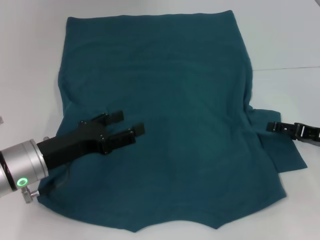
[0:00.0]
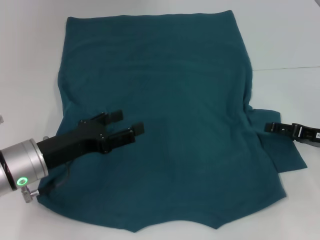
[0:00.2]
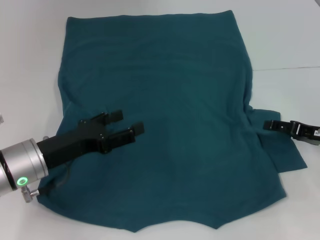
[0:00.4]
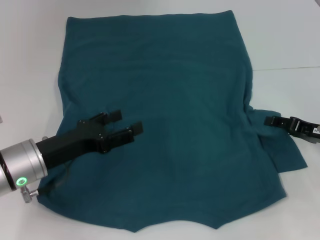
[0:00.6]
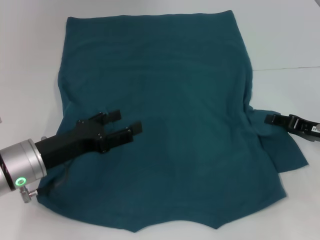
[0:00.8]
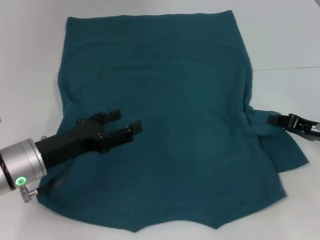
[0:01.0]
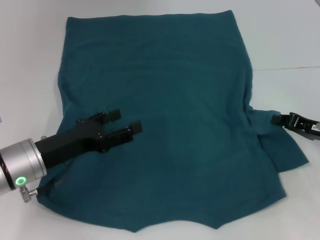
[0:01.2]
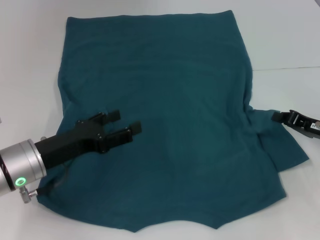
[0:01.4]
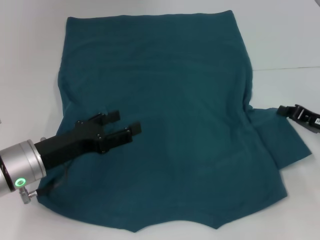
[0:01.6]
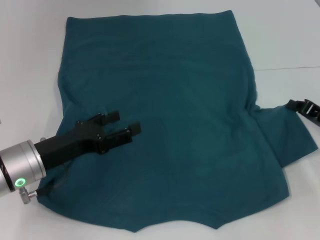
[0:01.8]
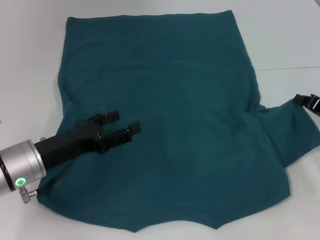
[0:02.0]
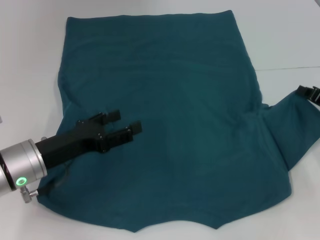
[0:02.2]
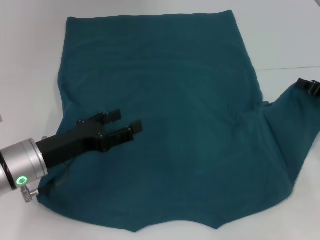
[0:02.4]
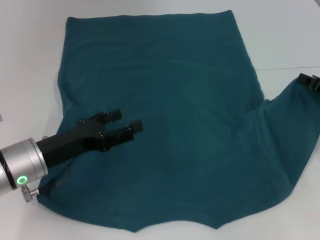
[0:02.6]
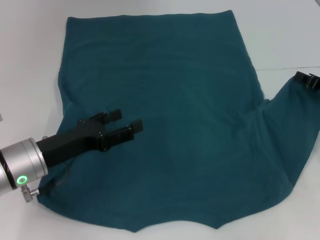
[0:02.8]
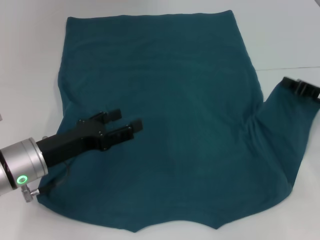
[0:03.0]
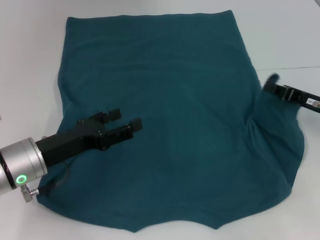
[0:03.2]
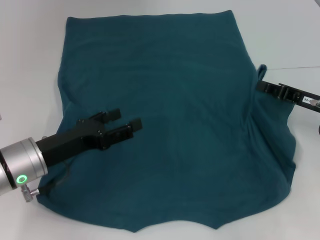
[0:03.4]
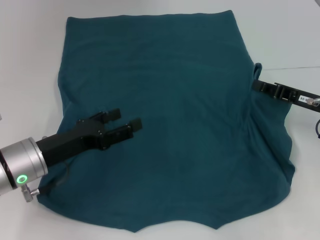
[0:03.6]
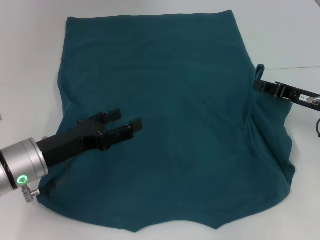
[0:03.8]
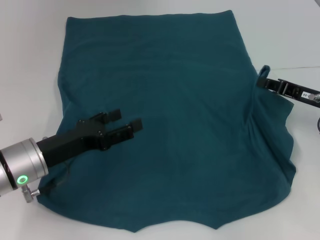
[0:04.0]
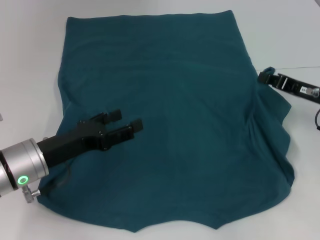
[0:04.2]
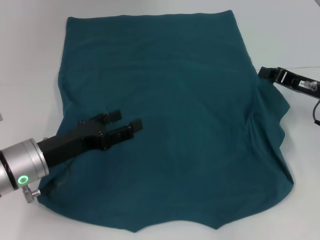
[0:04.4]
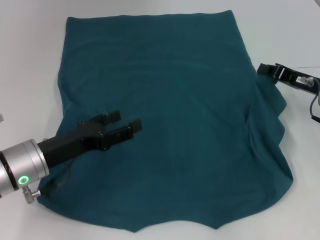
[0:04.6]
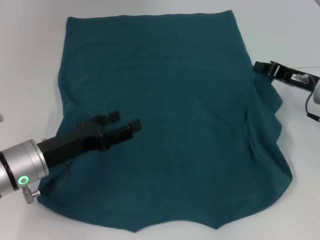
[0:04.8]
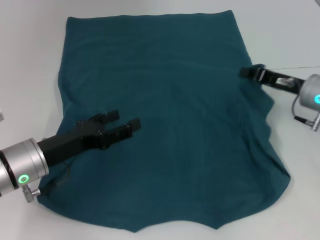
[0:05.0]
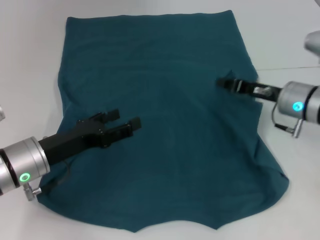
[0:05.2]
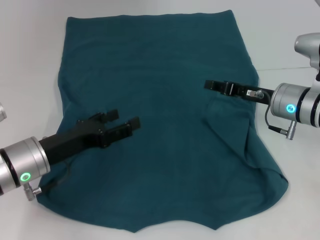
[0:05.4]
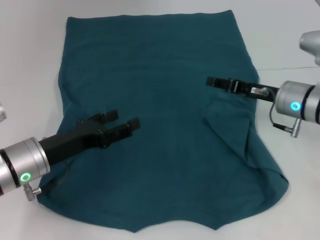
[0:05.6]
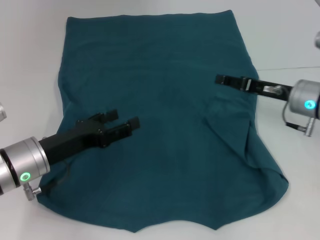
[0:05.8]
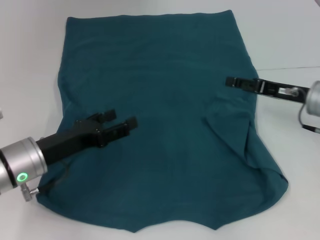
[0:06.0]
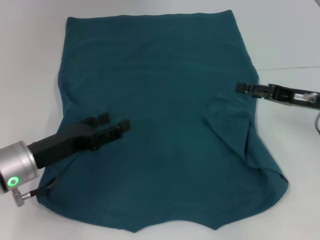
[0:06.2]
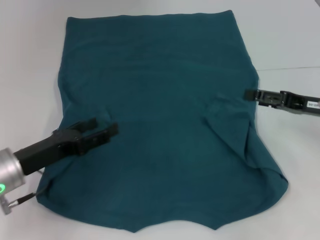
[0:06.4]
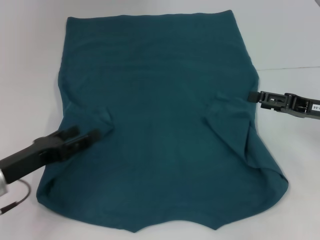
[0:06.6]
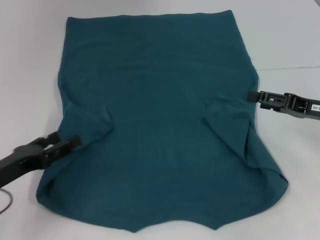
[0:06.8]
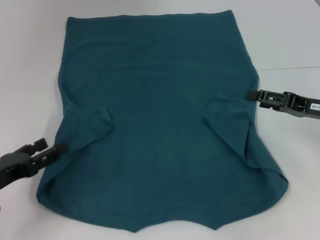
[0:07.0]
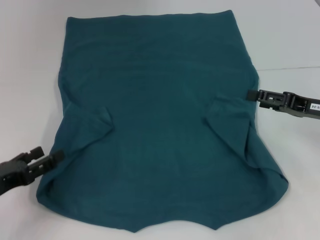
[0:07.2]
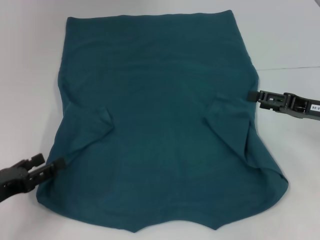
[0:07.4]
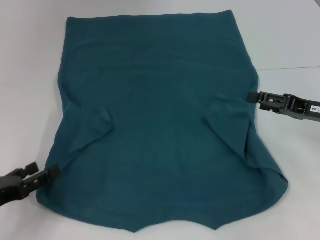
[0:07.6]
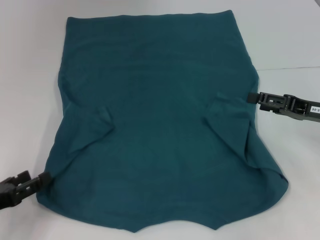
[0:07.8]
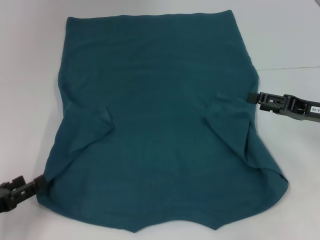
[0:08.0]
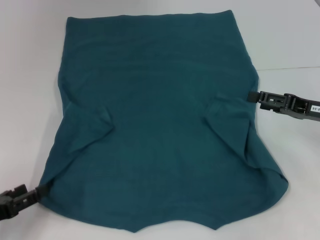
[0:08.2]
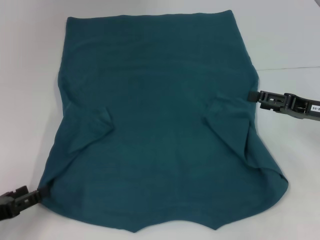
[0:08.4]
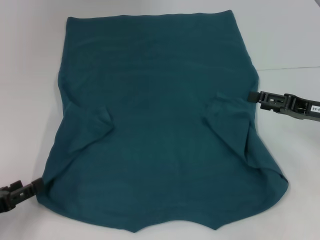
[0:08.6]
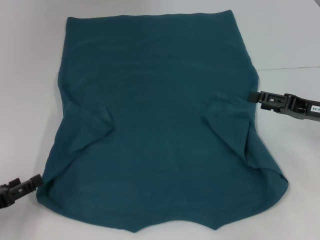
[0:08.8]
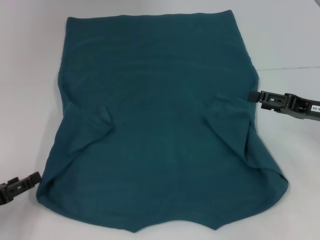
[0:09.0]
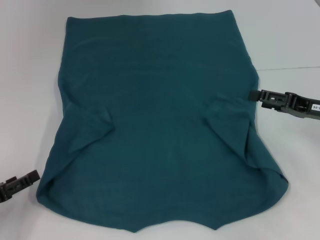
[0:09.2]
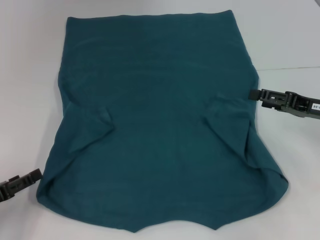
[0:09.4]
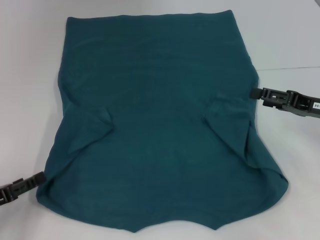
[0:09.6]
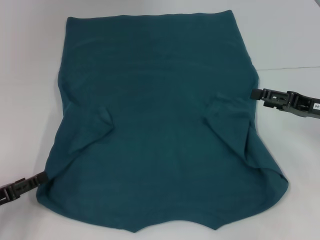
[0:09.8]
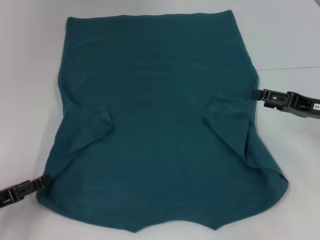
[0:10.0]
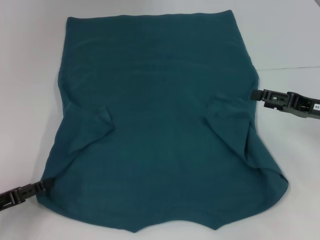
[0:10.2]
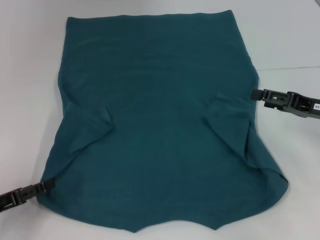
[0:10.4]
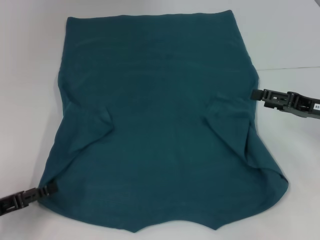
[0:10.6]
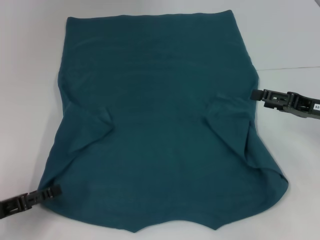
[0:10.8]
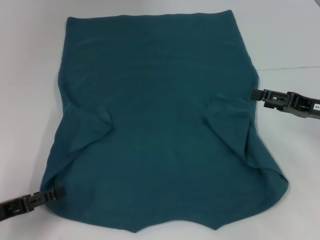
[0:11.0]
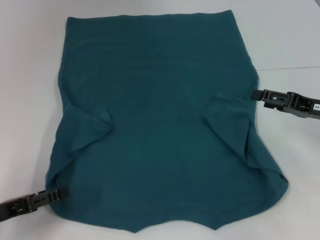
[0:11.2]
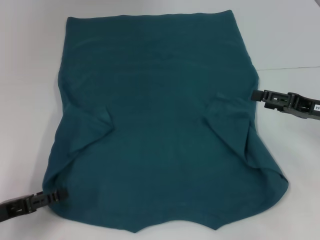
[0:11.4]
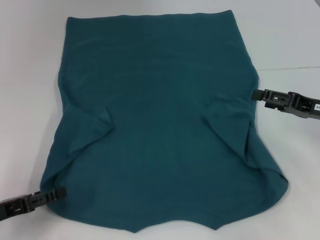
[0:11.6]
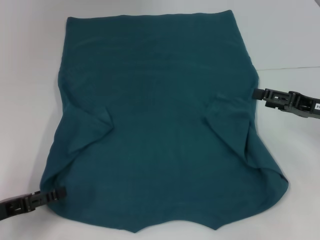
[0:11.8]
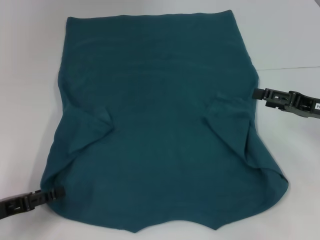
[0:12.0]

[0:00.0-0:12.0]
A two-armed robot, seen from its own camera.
Step, 0:00.0 to 0:06.0: Fold the bottom right sleeve to the right.
0:00.0 to 0:01.6: The right gripper closes its fingers.
0:01.6 to 0:03.0: The grippers stay close to where they were, moving slightly.
0:03.0 to 0:04.4: There are only small adjustments of the grippers.
0:04.4 to 0:06.0: The right gripper opens.
0:06.0 to 0:07.6: The left gripper travels to the left and backward by some 15 cm. The right gripper ends up some 5 cm from where it was.
0:07.6 to 0:12.0: There are only small adjustments of the grippers.

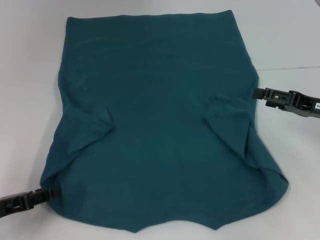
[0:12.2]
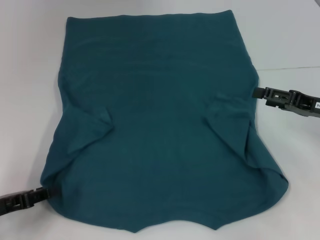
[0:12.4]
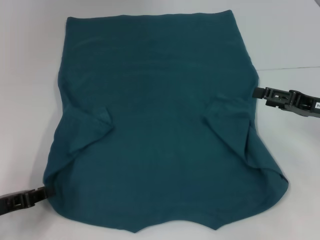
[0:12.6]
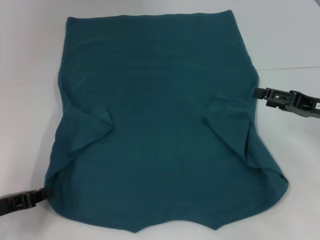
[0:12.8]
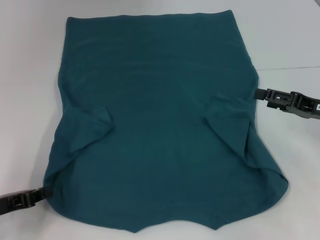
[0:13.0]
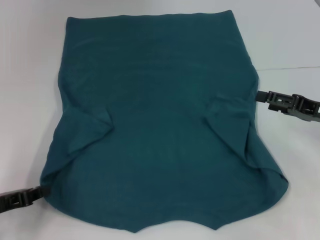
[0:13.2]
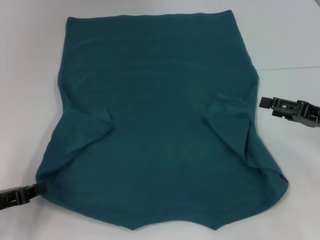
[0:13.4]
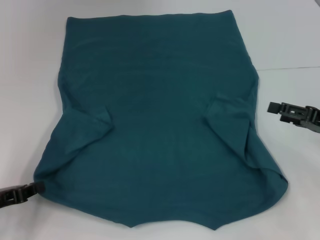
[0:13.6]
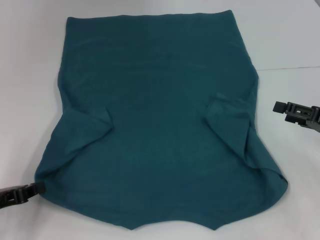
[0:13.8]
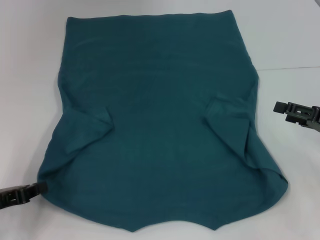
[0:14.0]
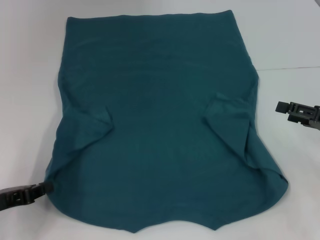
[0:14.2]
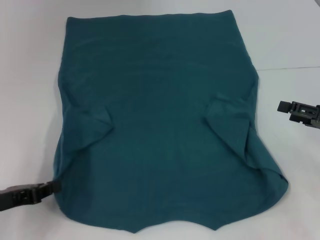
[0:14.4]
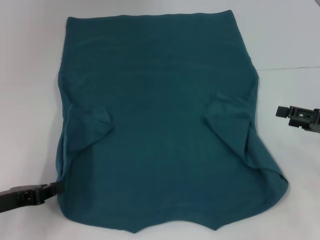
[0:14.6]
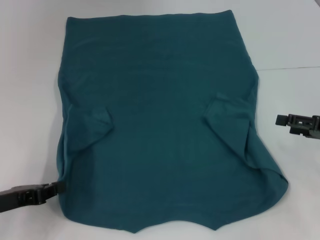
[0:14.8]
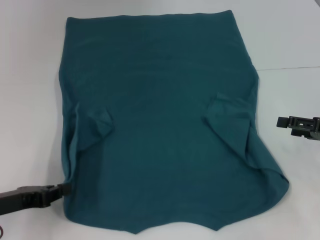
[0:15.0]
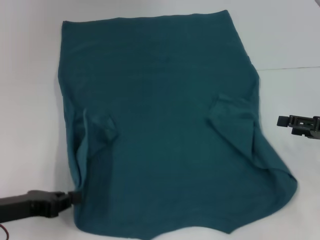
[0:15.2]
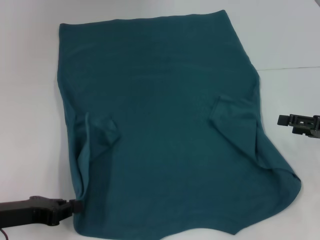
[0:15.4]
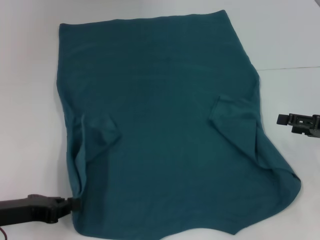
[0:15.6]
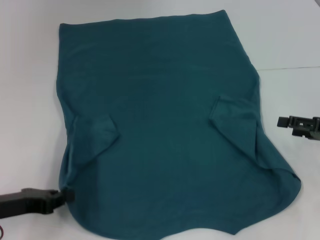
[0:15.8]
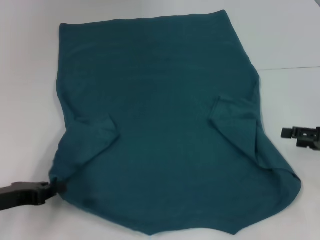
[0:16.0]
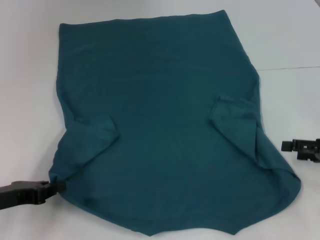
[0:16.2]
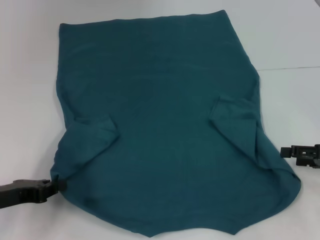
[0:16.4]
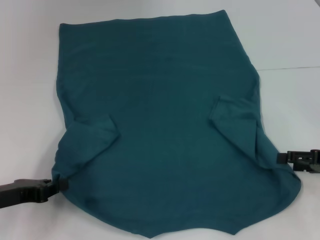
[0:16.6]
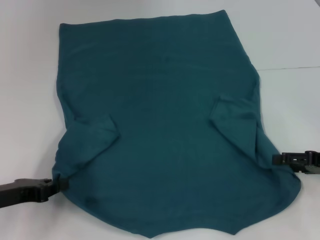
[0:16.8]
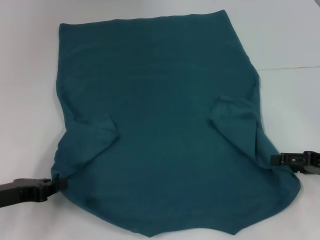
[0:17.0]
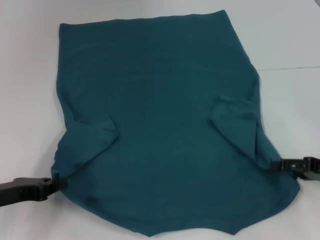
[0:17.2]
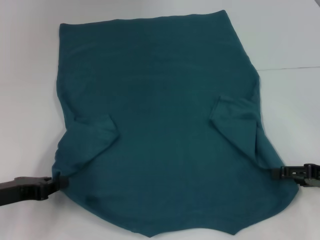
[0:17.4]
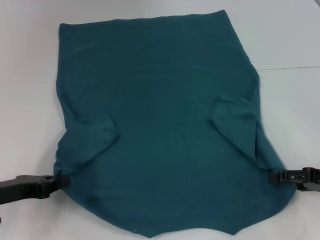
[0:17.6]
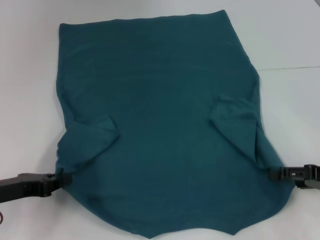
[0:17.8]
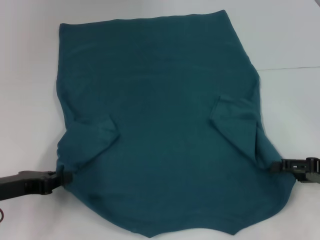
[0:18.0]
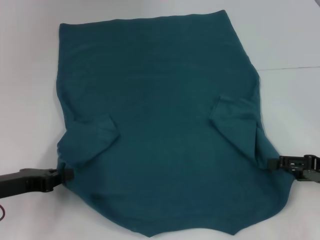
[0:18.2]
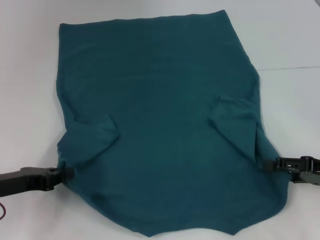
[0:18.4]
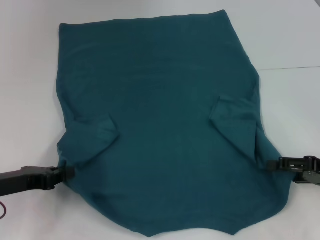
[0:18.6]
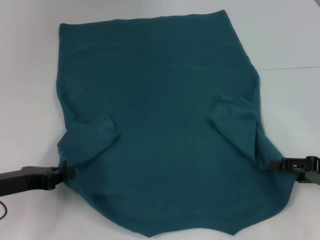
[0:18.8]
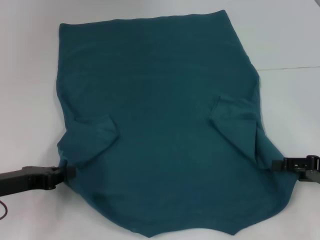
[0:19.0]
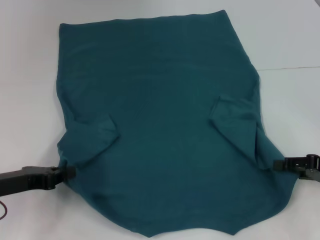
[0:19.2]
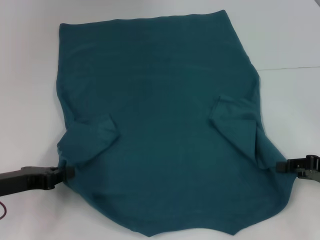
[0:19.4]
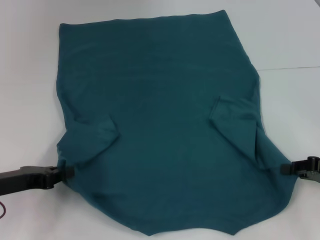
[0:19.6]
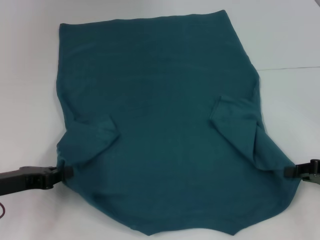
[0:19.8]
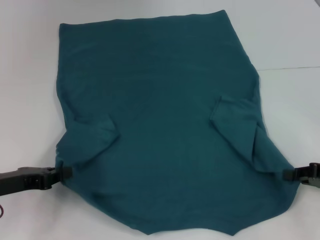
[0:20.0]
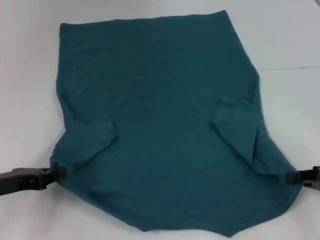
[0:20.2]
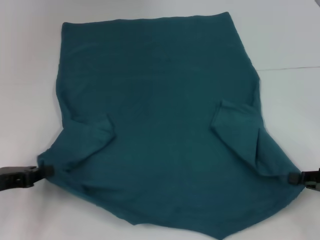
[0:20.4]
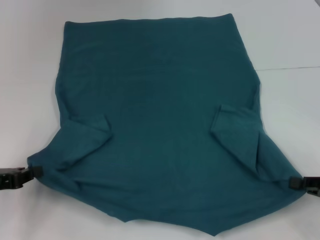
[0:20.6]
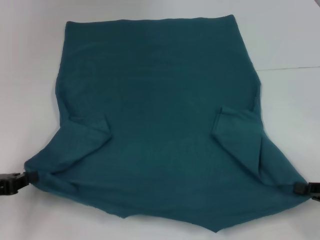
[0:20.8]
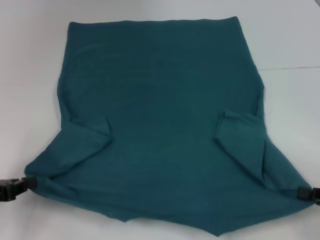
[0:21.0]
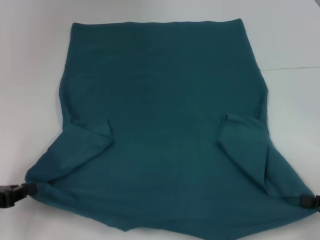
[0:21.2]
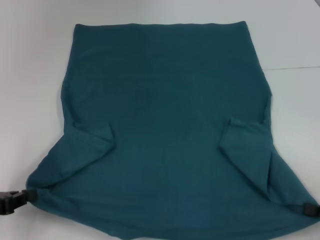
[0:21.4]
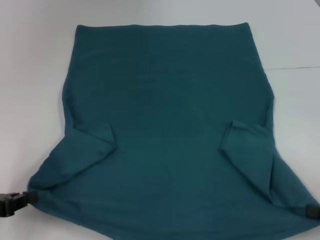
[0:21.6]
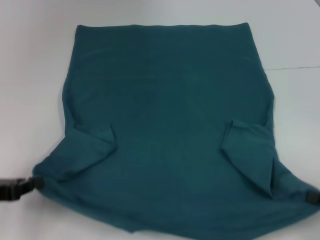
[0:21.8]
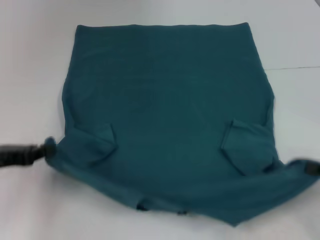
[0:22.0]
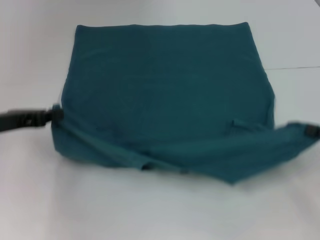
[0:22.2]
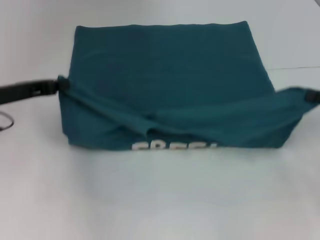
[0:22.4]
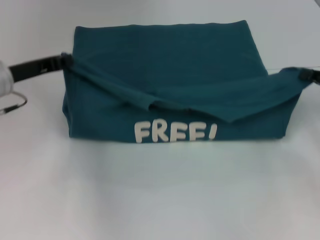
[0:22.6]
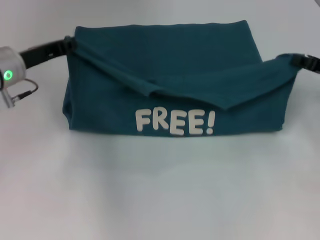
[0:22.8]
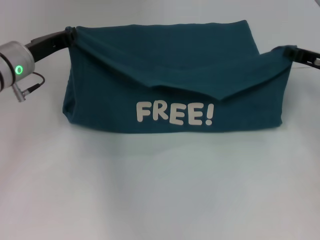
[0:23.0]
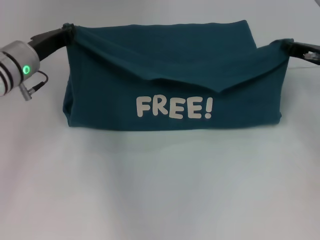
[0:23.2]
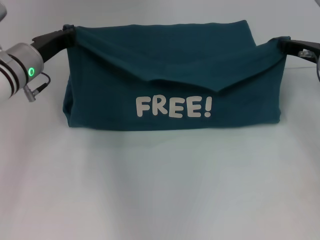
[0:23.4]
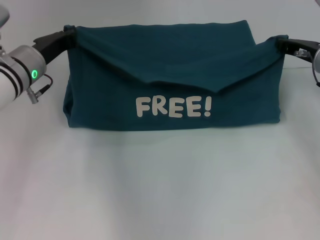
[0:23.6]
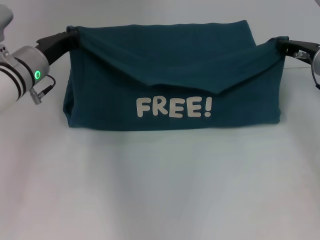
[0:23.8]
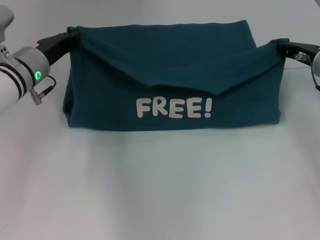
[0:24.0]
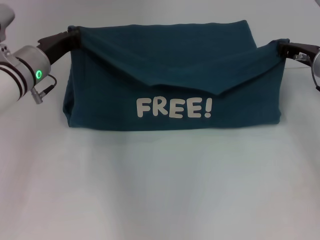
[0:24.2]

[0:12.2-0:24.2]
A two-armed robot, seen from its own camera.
Step, 0:13.6 to 0:20.2: Grab the bottom right corner with your right hand.
0:12.2 to 0:13.8: The left gripper closes its fingers.
0:13.8 to 0:15.2: There are only small adjustments of the grippers.
0:15.2 to 0:18.2: The grippers stay close to where they were, moving slightly.
0:18.2 to 0:19.8: The right gripper closes up.
0:19.8 to 0:21.2: The left gripper ends up roughly 5 cm from where it was. The right gripper travels backward by about 10 cm.
0:21.2 to 0:22.6: The left gripper shifts about 20 cm forward, to the right and upward; the right gripper goes approximately 15 cm forward and upward.
0:22.6 to 0:24.2: The left gripper moves to the right, approximately 5 cm. The right gripper shifts roughly 10 cm forward and to the left.
